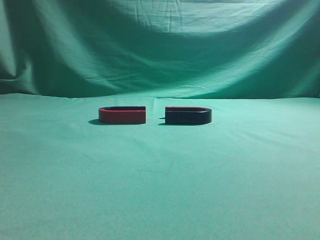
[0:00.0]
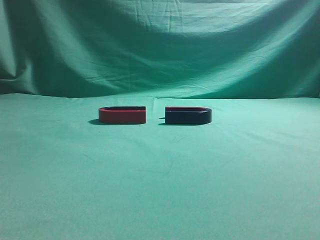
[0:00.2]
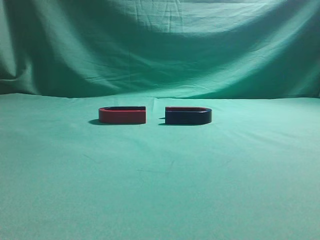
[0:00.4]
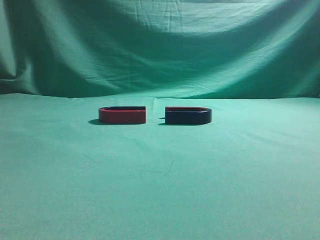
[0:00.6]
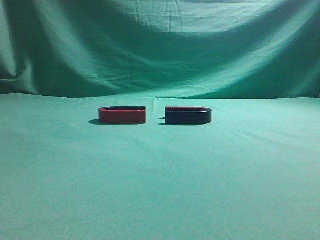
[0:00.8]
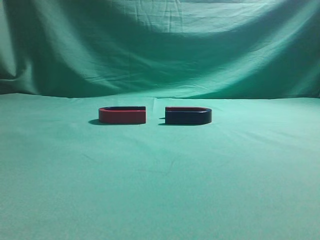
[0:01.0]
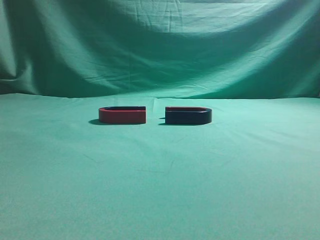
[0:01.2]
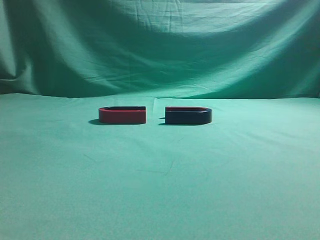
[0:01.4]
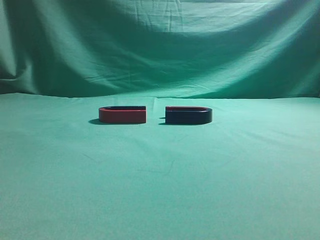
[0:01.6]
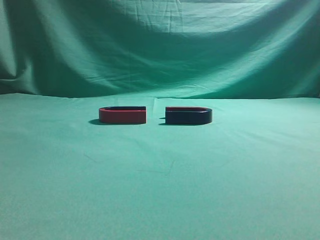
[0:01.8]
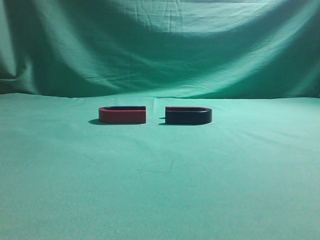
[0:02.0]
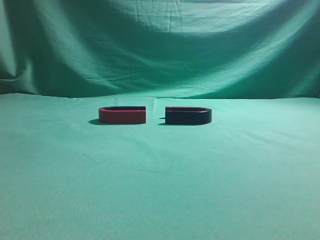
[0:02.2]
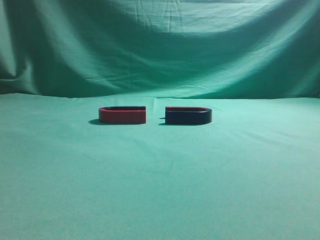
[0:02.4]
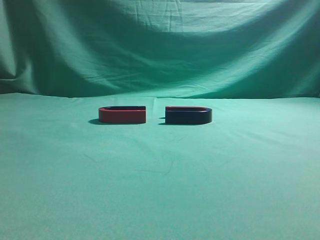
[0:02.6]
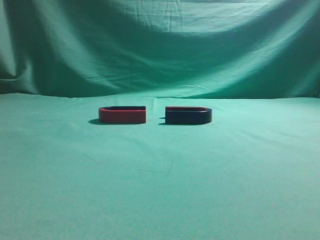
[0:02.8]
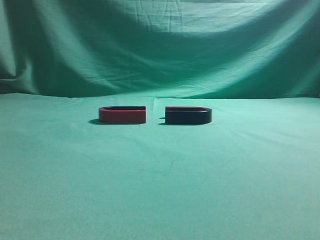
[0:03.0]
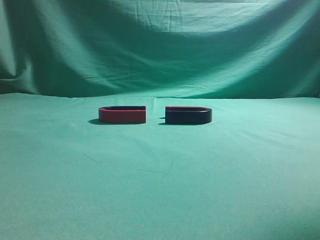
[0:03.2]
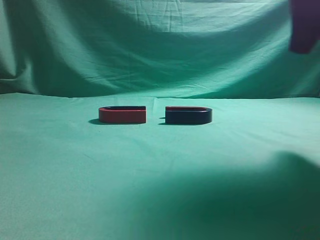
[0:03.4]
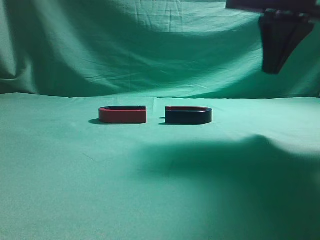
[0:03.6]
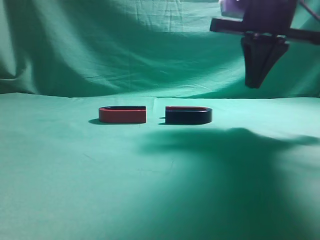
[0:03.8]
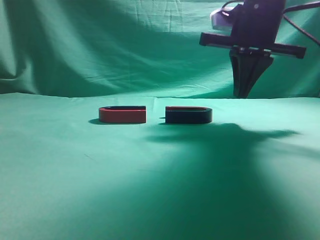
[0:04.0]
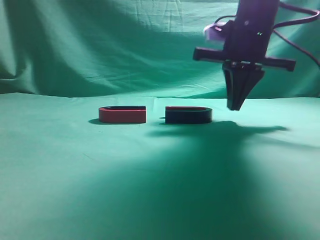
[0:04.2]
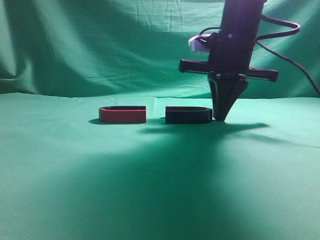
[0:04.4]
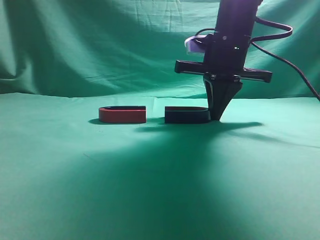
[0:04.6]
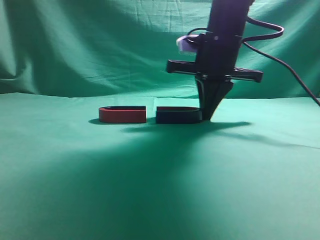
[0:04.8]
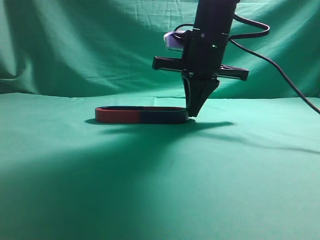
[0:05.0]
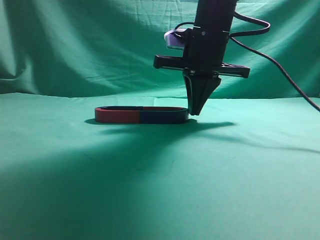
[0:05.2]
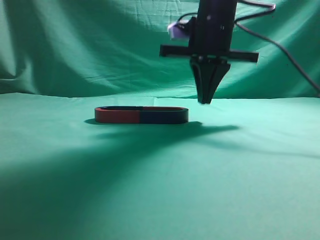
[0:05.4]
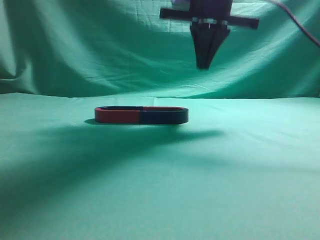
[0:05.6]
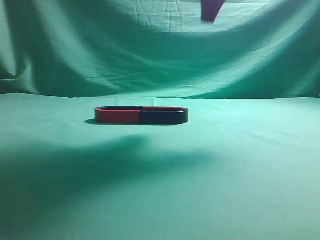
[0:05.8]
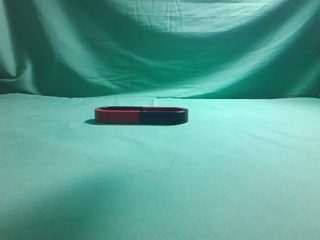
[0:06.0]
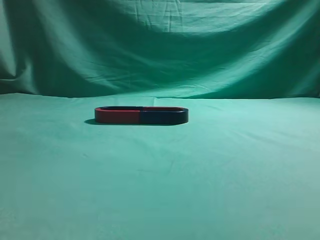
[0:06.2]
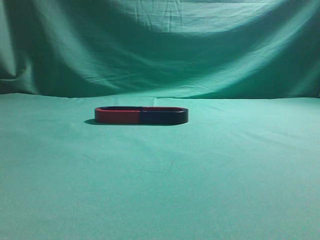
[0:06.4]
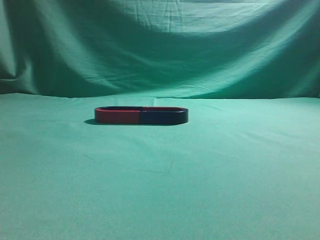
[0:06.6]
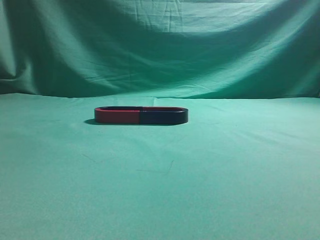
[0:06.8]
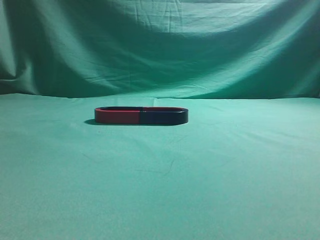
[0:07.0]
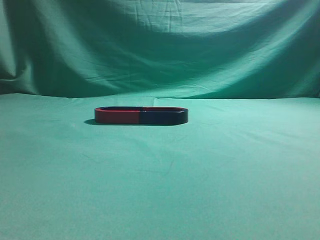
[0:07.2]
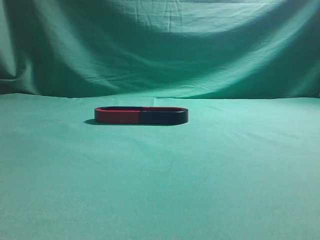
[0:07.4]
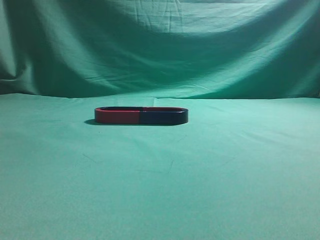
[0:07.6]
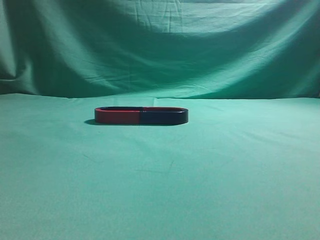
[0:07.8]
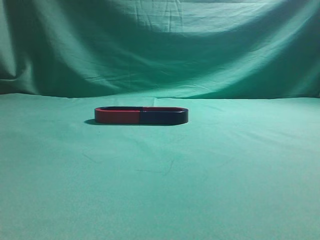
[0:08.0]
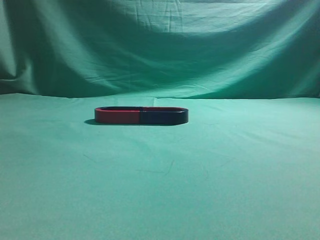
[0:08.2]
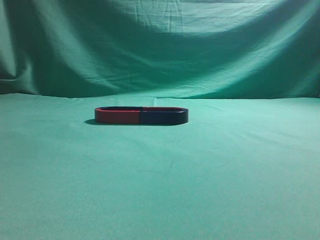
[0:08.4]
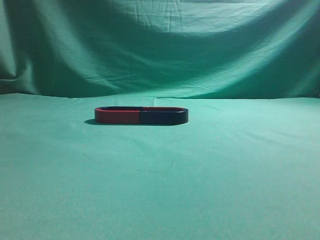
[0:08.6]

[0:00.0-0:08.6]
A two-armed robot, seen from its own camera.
Task of the whole recording: push the magnet on the table from its original position to another position.
Step, 0:00.0 to 0:05.2: Push the magnet on the right to connect the magnet on the left.
0:02.8 to 0:04.4: The right gripper shifts some 30 cm forward, to the left and downward.
0:04.4 to 0:05.8: The right gripper moves upward, roughly 15 cm.
0:05.8 to 0:07.2: The right gripper goes roughly 35 cm backward and to the right.

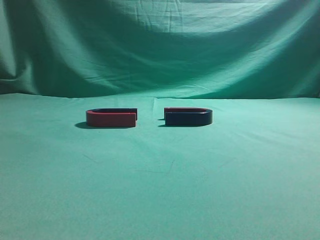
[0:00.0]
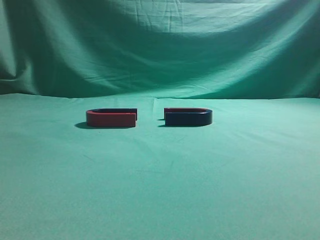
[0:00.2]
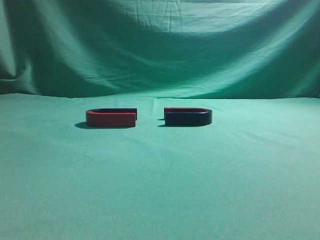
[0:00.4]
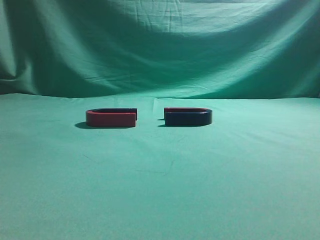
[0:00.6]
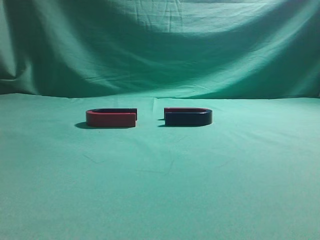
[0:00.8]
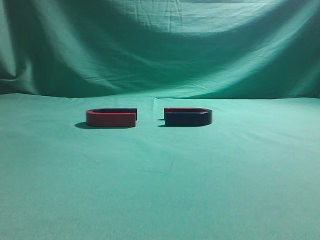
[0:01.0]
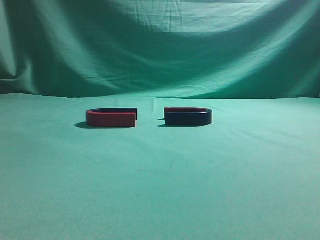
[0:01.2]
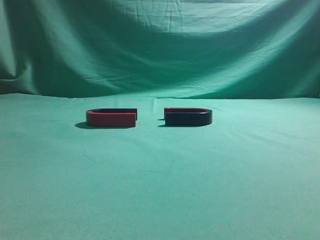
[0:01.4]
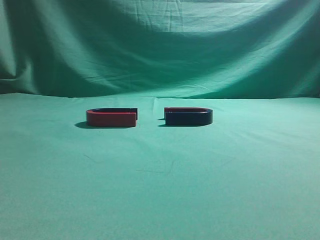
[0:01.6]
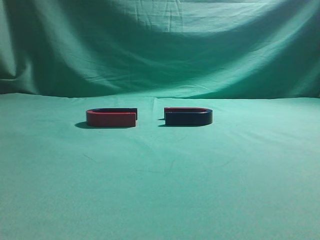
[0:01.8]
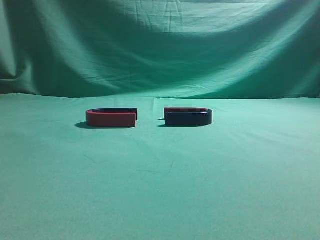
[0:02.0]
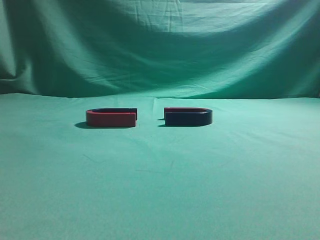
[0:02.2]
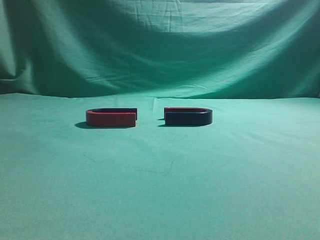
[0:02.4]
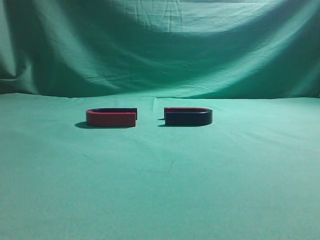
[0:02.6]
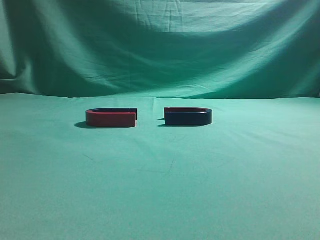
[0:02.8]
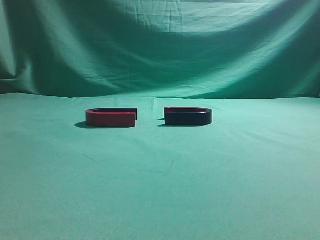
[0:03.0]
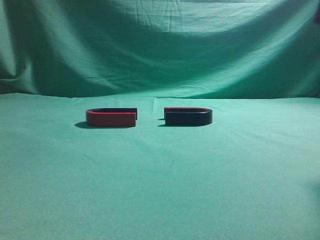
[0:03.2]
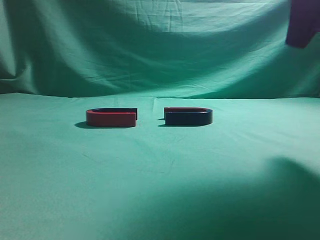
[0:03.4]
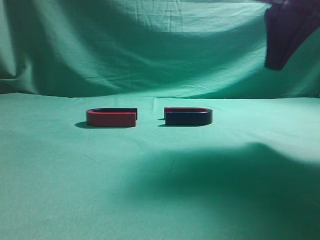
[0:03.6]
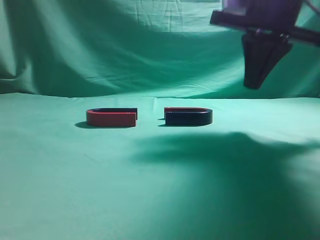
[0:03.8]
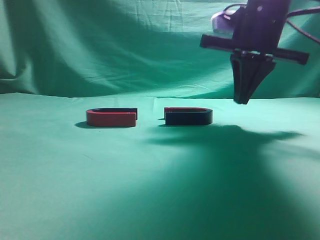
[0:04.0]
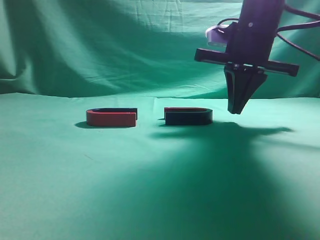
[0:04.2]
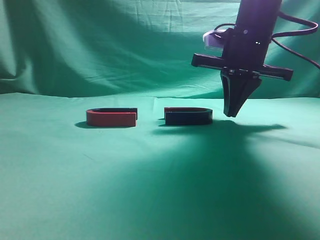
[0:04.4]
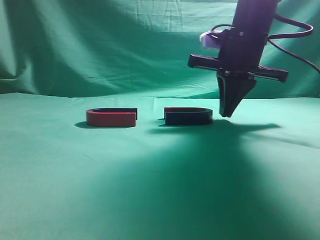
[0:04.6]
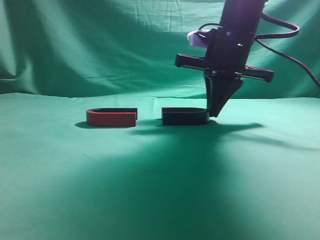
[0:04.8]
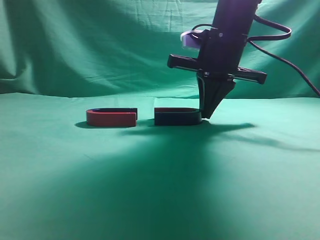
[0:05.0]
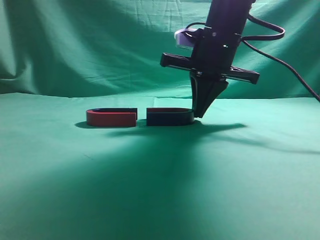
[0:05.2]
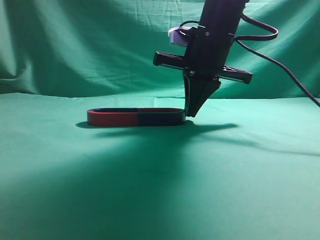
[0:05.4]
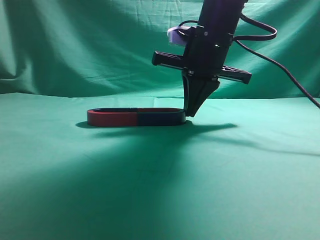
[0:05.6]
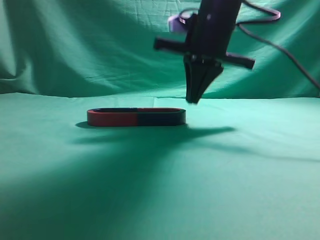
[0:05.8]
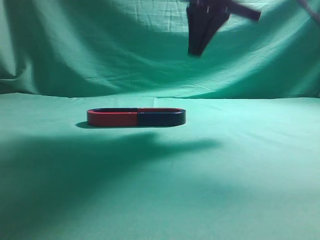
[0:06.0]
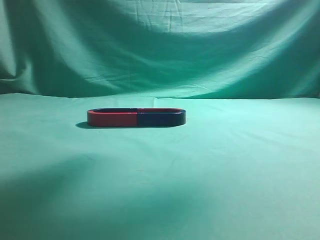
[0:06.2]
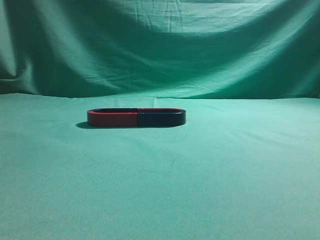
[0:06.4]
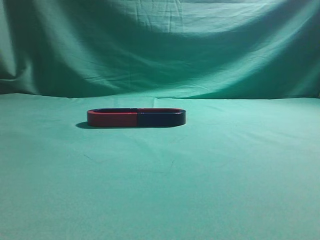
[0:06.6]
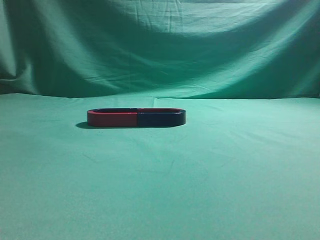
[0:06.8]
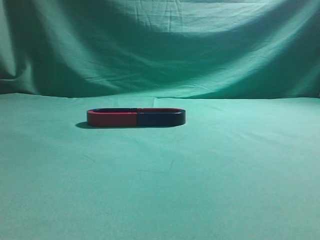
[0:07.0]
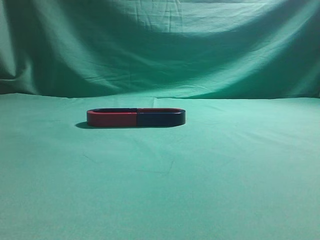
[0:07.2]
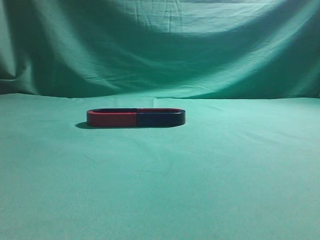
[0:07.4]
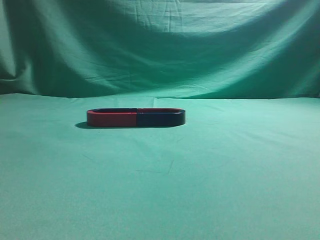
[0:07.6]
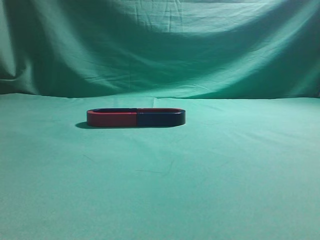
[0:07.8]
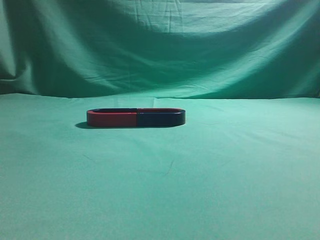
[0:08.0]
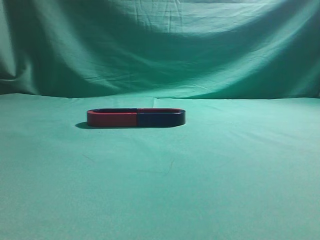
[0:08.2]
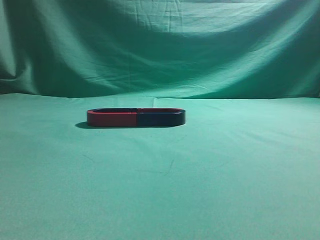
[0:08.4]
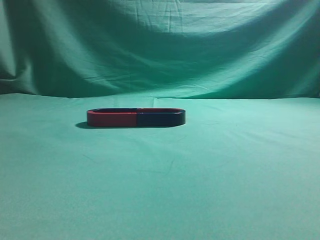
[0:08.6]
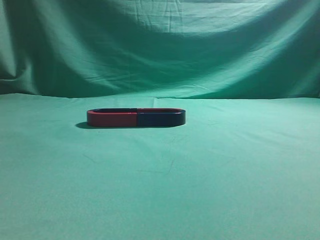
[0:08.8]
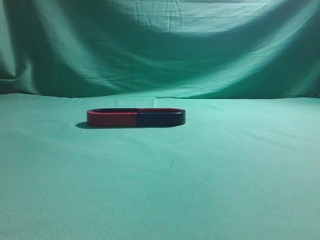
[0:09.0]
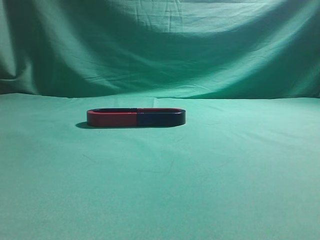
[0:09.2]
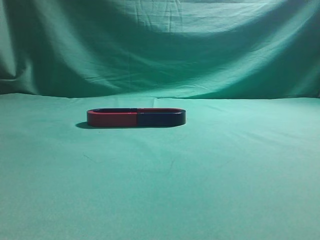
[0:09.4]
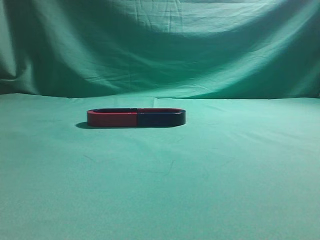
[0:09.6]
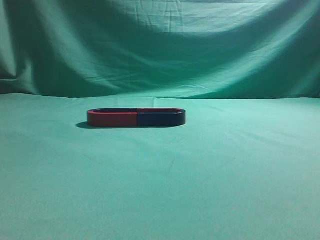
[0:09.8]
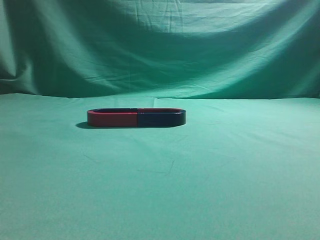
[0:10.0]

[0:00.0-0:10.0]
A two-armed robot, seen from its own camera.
Task of the whole recording: push the magnet on the table from its original position to another position.
Step, 0:00.0 to 0:05.6: Push the magnet on the right to connect the magnet on the left.
0:02.8 to 0:04.2: The right gripper travels forward, to the left and downward by approximately 25 cm.
0:04.2 to 0:05.8: The right gripper heads to the left, covering approximately 5 cm.
0:05.8 to 0:07.2: The right gripper is displaced backward, upward and to the right by some 40 cm.
